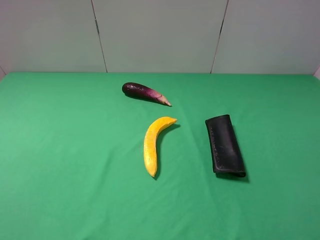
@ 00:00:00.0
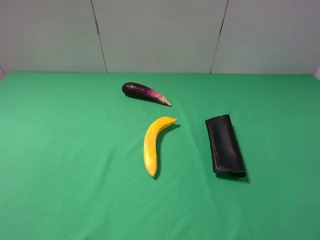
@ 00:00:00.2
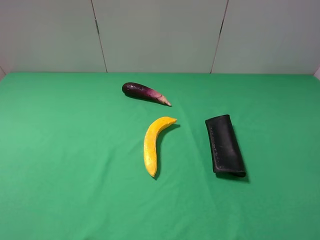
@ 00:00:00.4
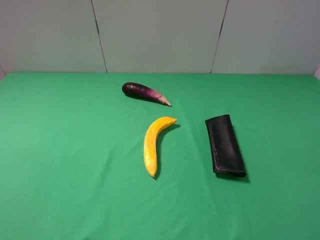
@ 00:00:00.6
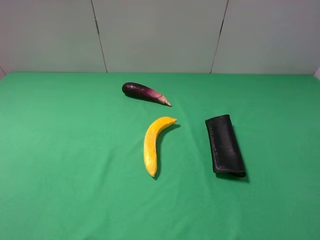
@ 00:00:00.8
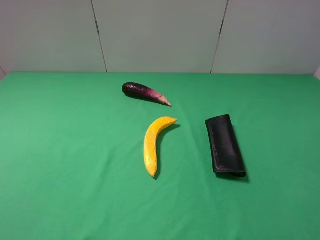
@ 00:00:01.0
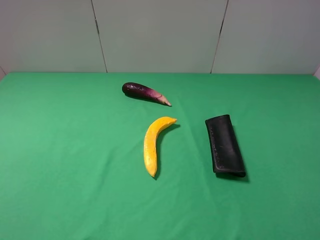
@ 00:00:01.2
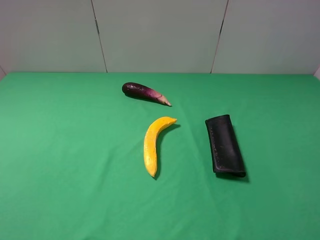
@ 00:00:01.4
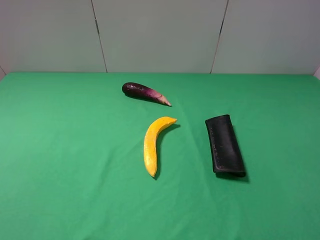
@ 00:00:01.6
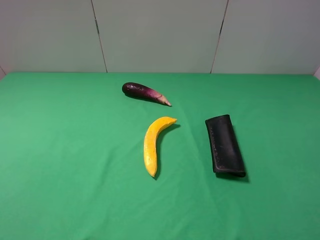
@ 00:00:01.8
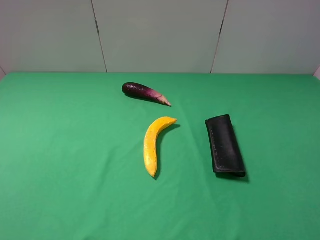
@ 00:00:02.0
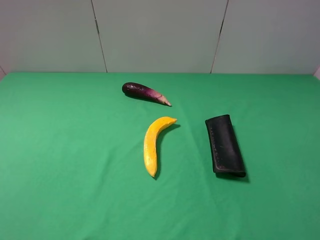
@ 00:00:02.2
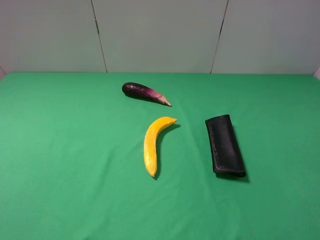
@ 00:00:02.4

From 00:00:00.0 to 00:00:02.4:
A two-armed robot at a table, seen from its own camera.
Task of the whole recording: use the left gripper to pick up the item and transfer it from the left gripper to the right gripper.
From 00:00:01.2 to 00:00:02.4: The two grippers keep their place.
